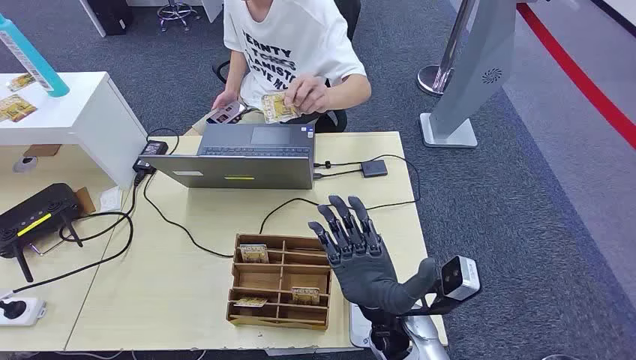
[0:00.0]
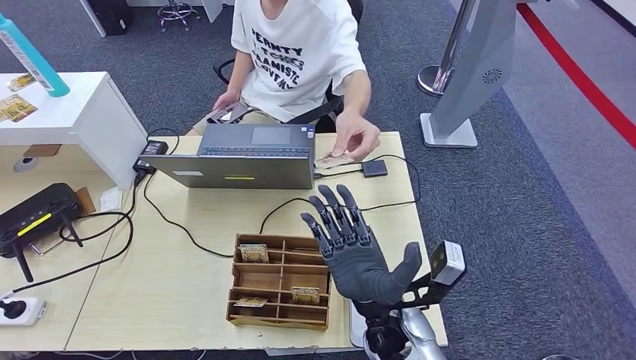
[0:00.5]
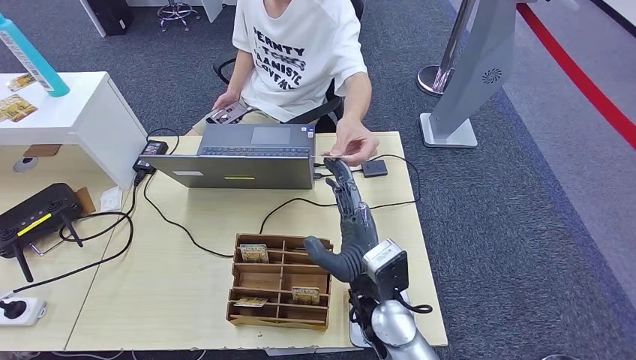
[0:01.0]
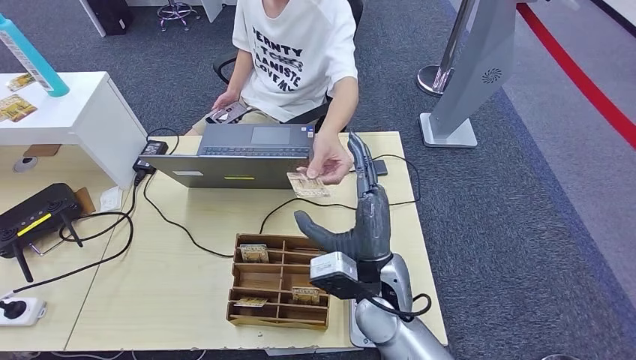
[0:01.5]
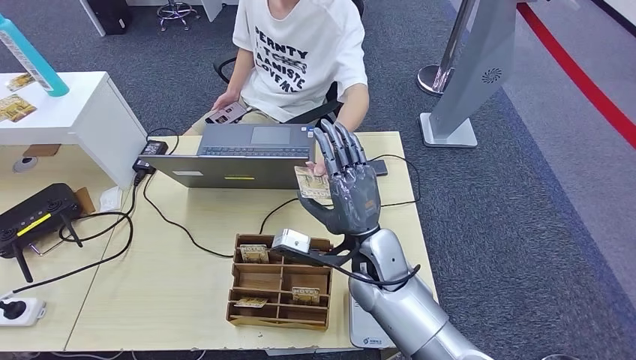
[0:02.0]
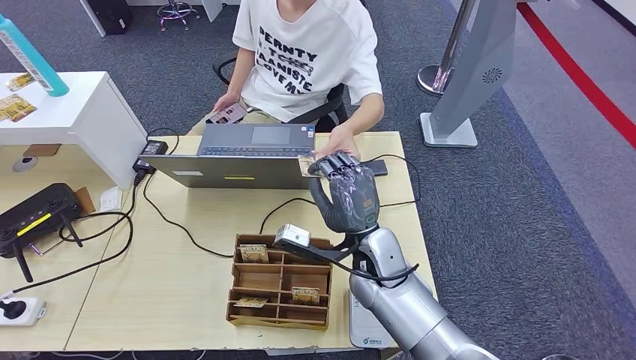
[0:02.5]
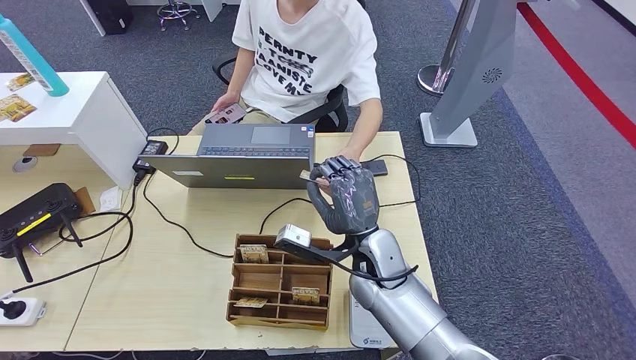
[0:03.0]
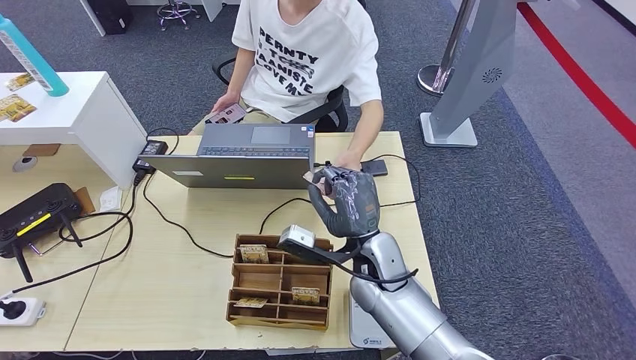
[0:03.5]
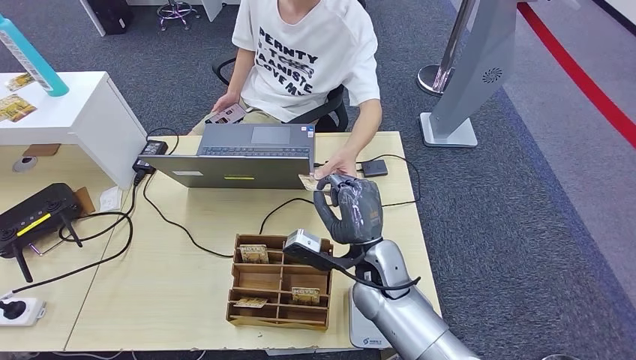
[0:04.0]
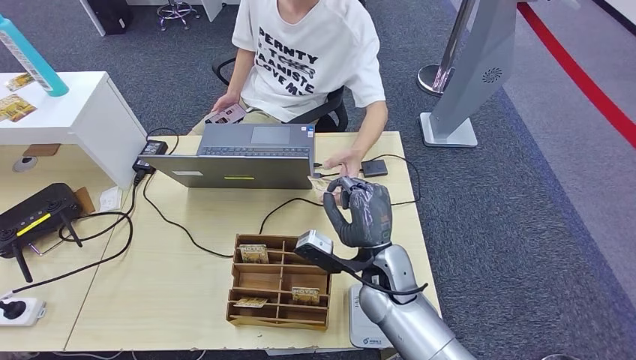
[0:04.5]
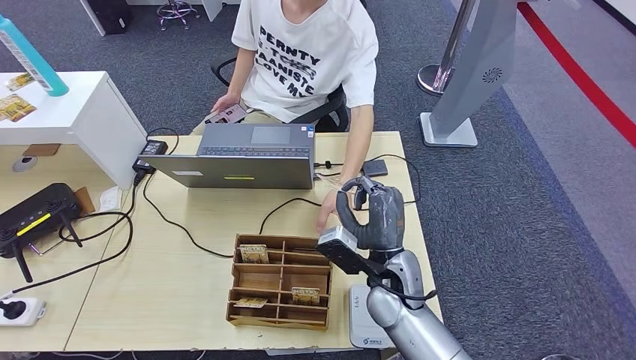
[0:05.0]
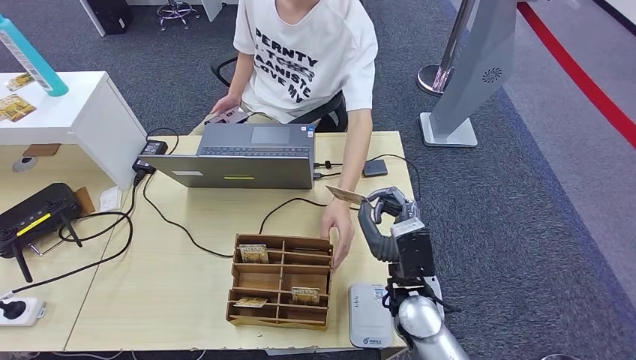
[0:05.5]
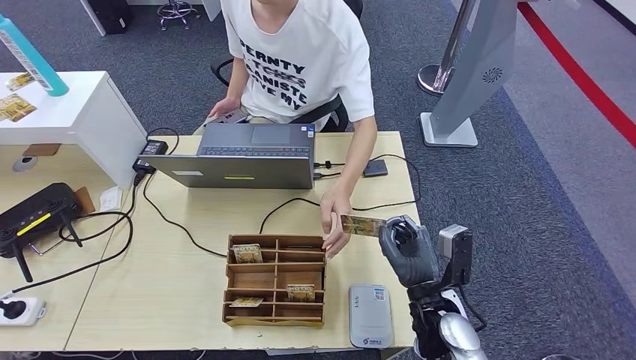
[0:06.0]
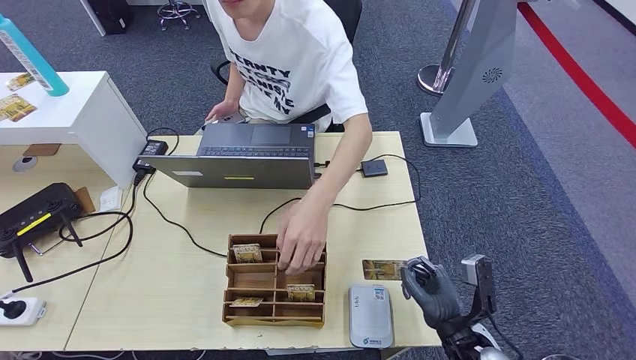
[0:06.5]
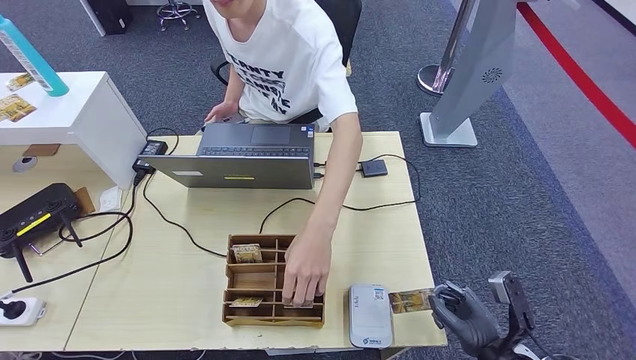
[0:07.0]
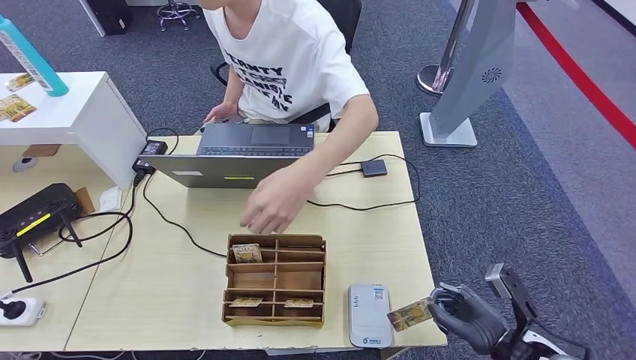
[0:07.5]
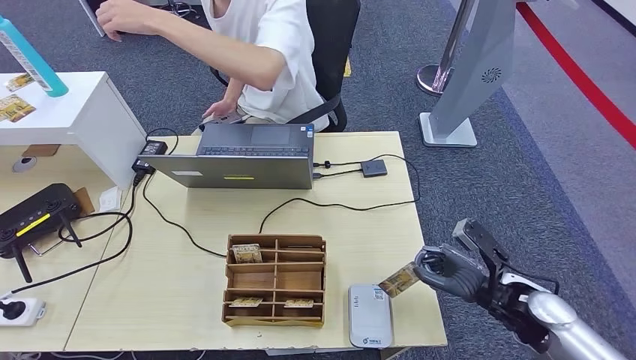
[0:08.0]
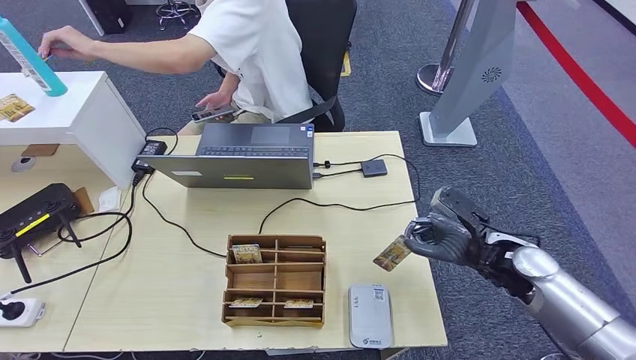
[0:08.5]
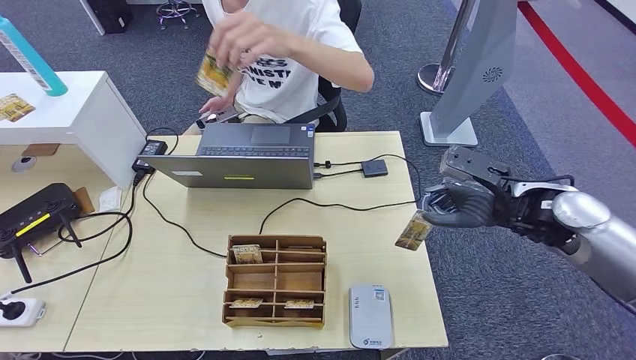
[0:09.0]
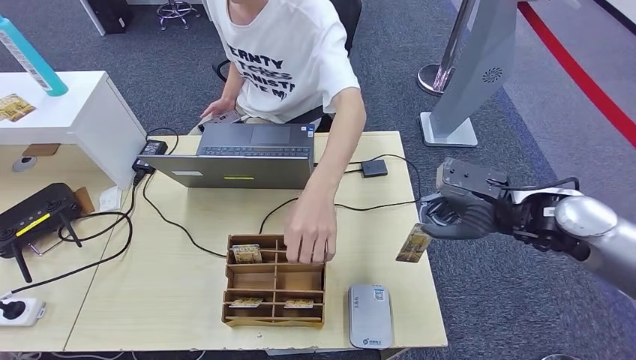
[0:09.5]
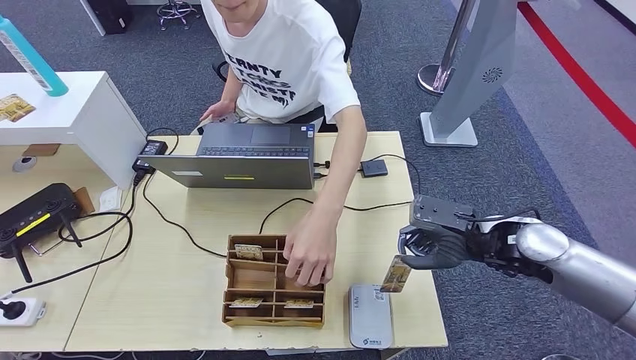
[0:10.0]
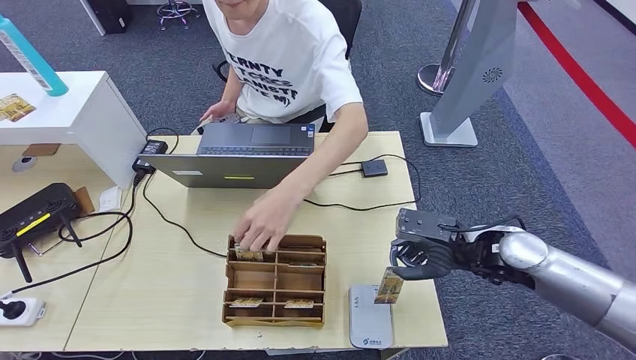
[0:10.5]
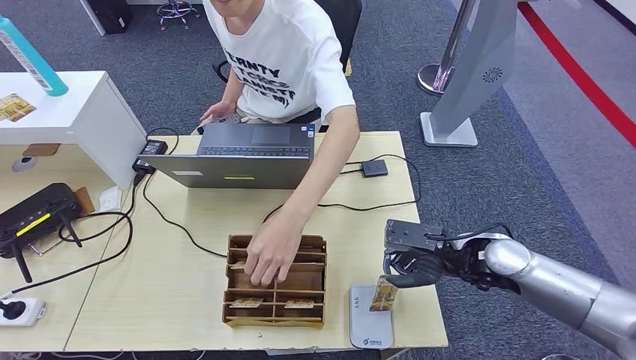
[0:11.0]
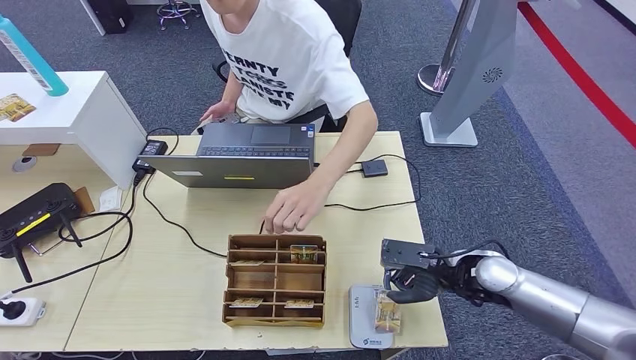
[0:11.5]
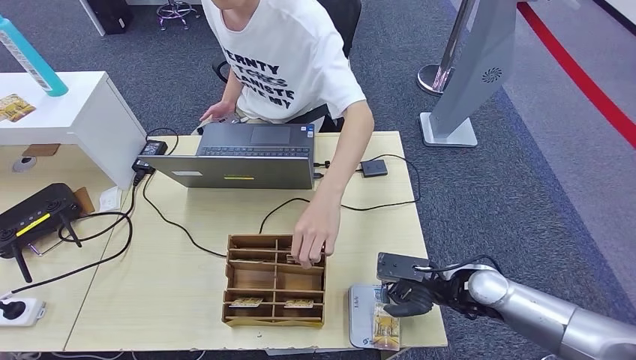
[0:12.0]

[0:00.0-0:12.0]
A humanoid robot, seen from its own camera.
Step, 0:00.0 to 0:02.0: Take the ID card from the person's hand.
0:02.0 to 0:04.0: The hands stay close to where they were, moving slightly.
0:04.0 to 0:06.0: The right hand goes approximately 10 cm to the right and backward.
0:08.0 to 0:10.0: The right hand travels upward and forward by about 10 cm.
0:10.0 to 0:12.0: The right hand shifts about 10 cm downward.

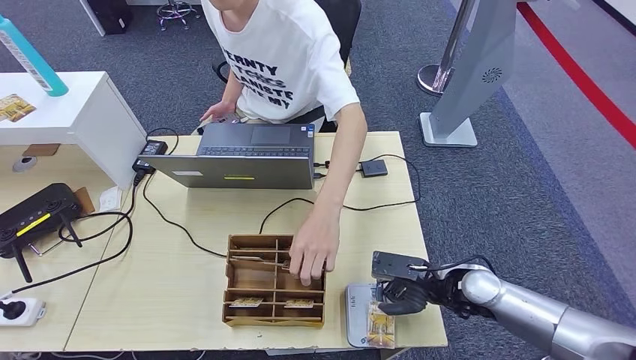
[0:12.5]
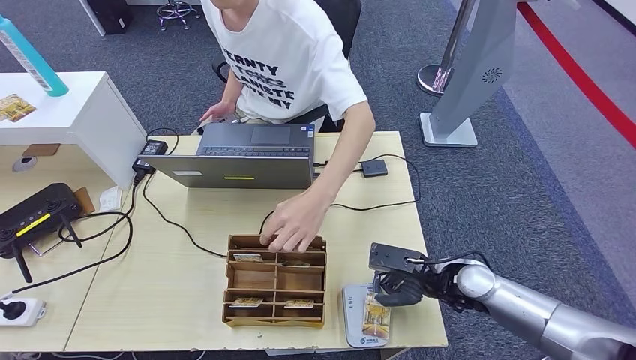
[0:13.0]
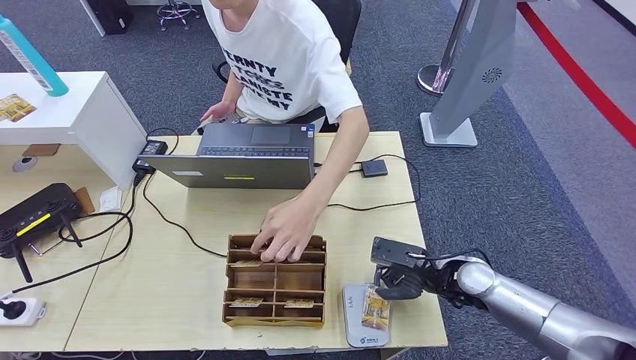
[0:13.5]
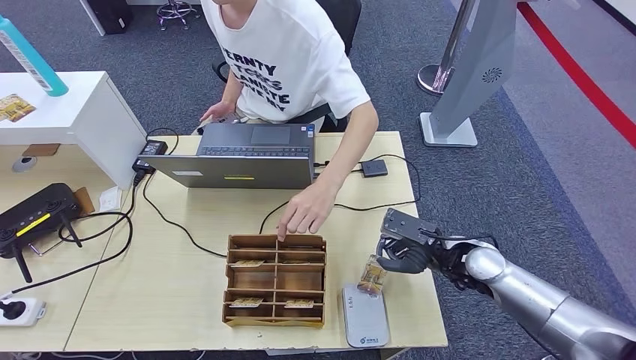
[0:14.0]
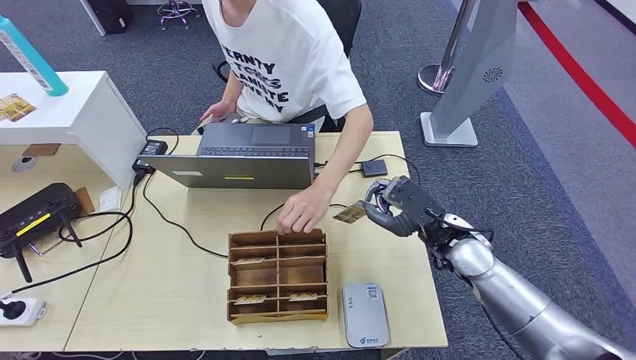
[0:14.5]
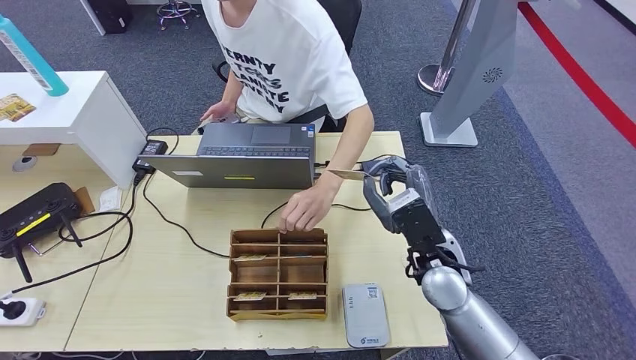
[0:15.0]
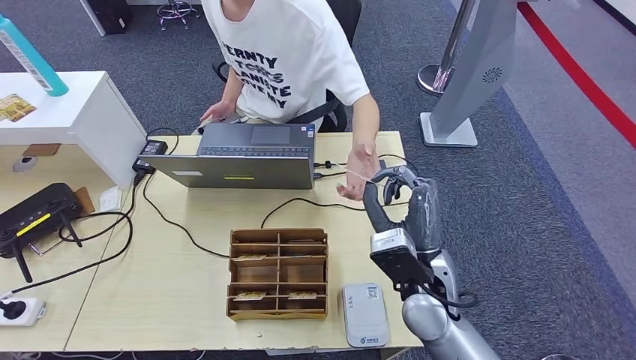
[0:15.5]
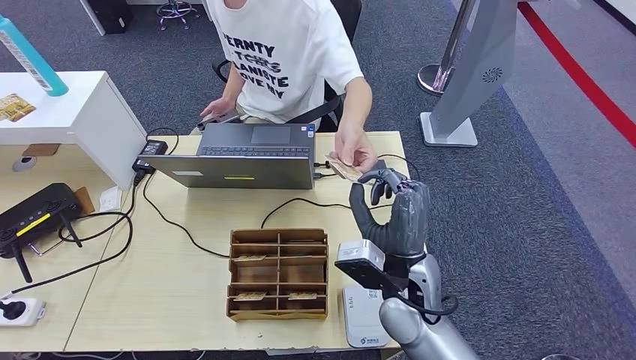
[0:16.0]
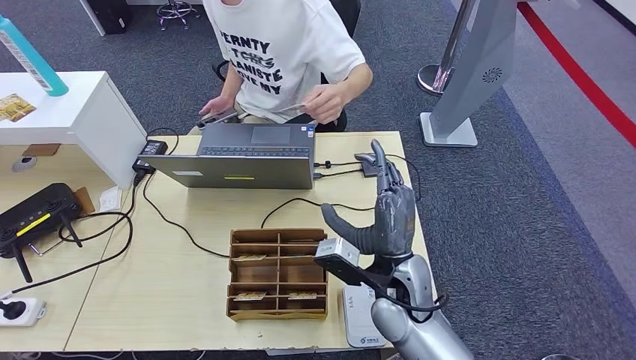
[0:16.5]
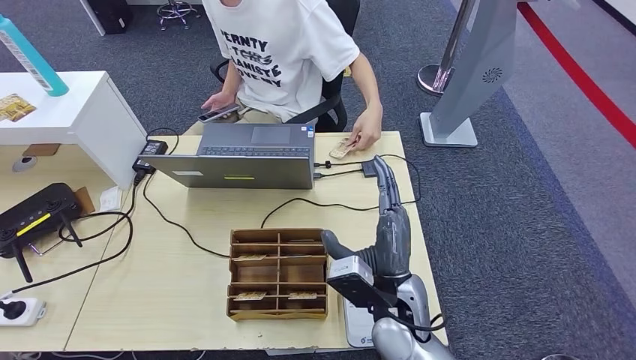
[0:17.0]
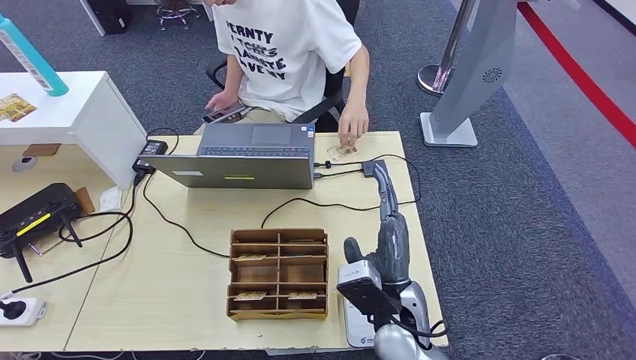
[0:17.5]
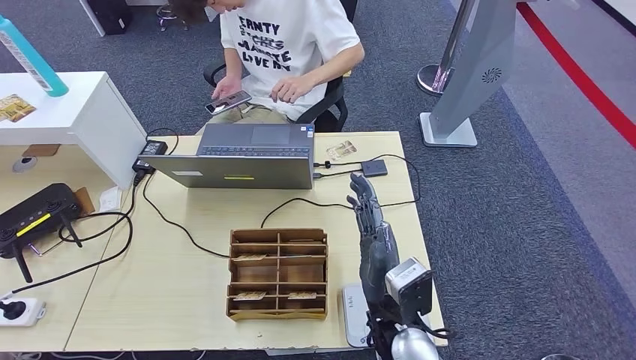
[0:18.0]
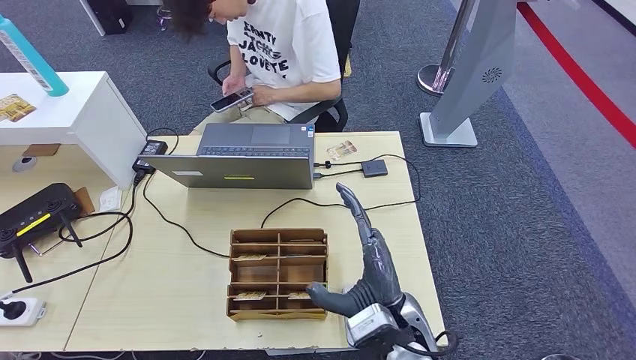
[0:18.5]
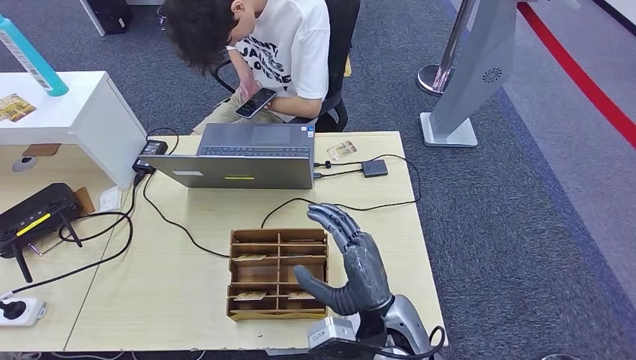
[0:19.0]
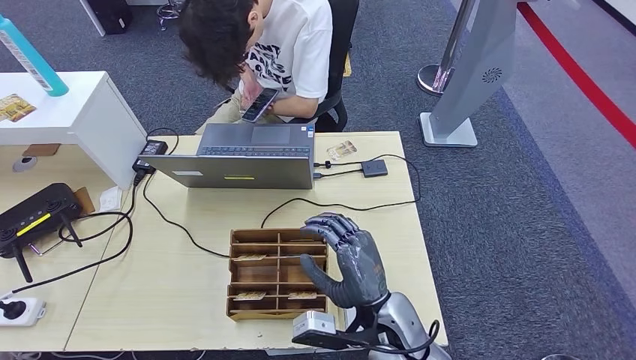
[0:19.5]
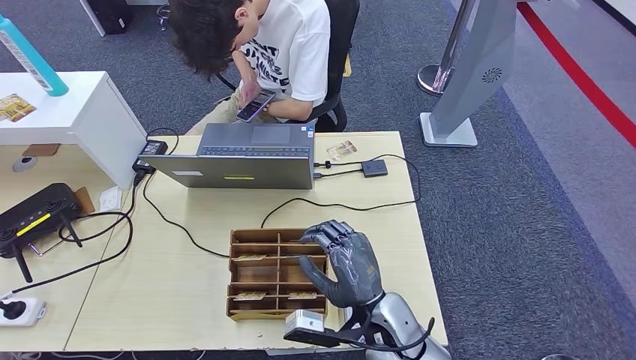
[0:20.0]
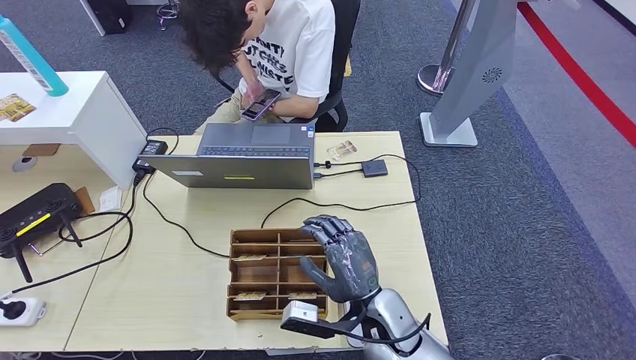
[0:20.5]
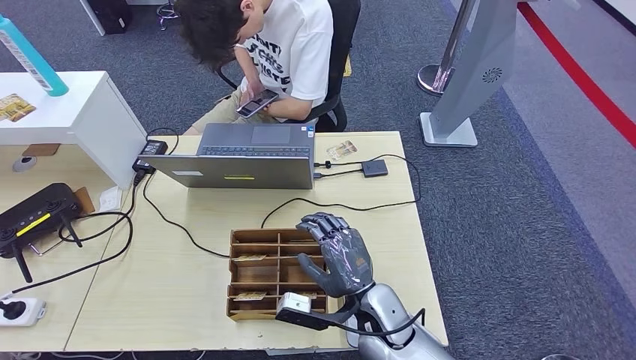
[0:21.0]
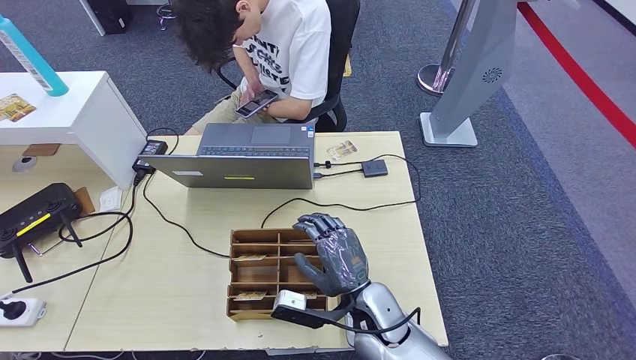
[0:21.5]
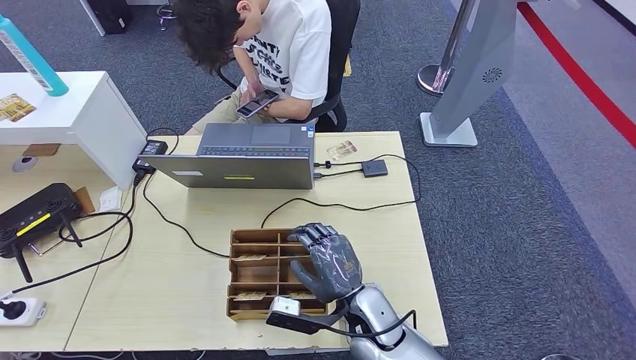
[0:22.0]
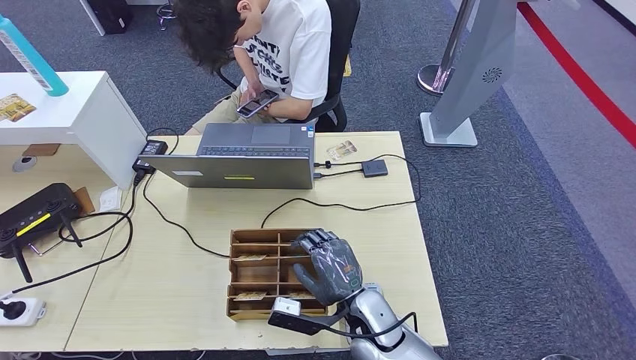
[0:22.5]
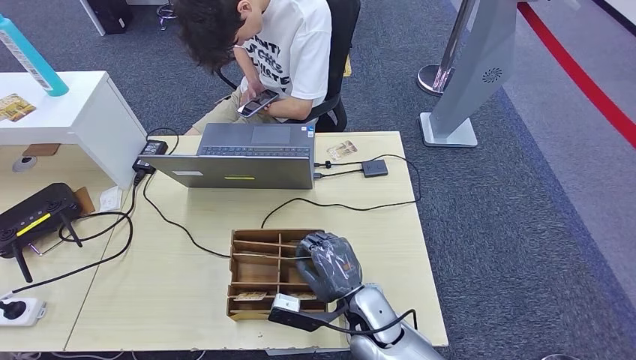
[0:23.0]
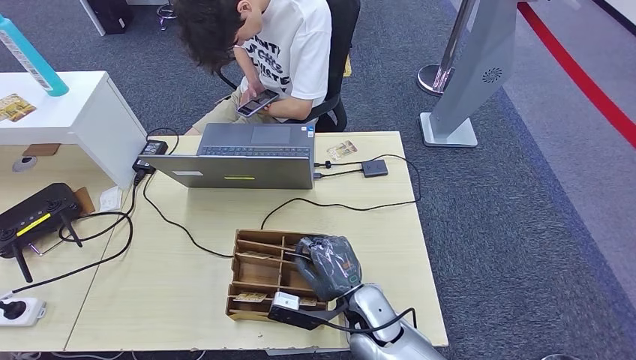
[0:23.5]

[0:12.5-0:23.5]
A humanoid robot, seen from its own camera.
Step, 0:12.5 to 0:17.0: Hand the ID card to the person.
0:12.5 to 0:14.5: The right hand heads upward, covering roughly 5 cm.
0:14.5 to 0:16.0: The right hand moves to the left and backward, some 15 cm.
0:16.0 to 0:18.0: The right hand is displaced backward by approximately 5 cm.
0:20.0 to 0:23.5: The hands stay close to where they were, moving slightly.
